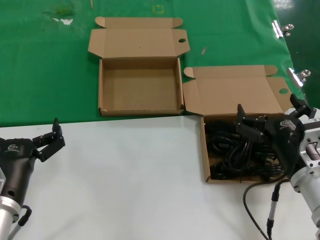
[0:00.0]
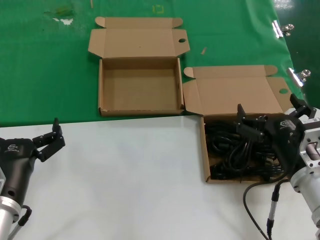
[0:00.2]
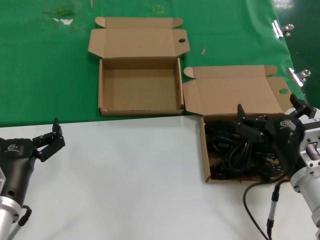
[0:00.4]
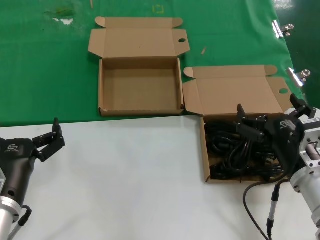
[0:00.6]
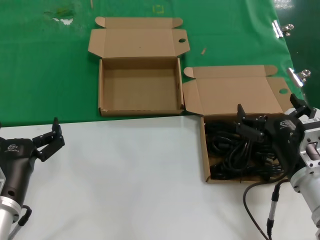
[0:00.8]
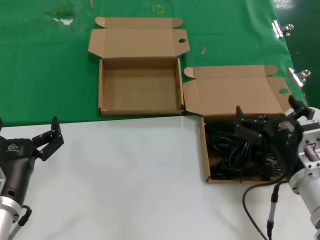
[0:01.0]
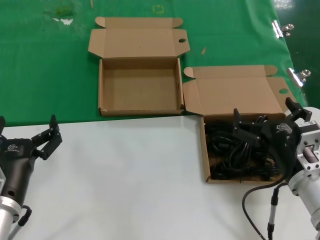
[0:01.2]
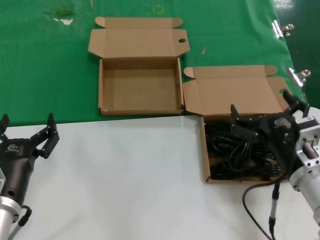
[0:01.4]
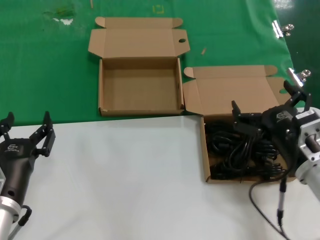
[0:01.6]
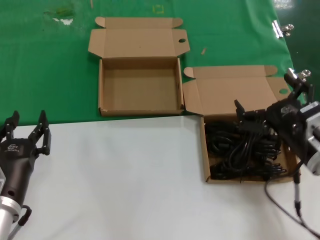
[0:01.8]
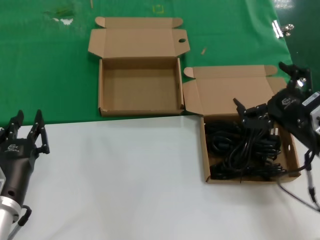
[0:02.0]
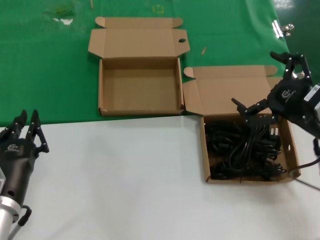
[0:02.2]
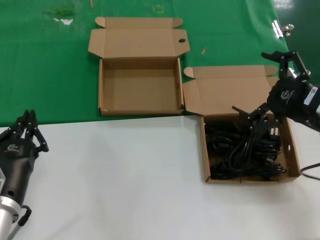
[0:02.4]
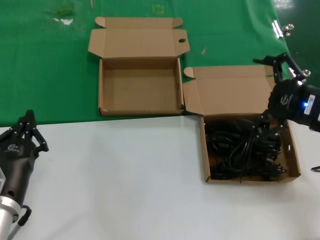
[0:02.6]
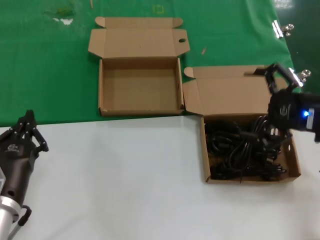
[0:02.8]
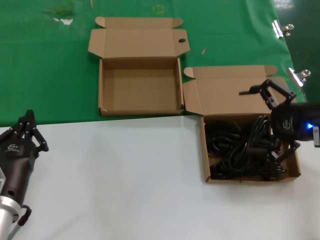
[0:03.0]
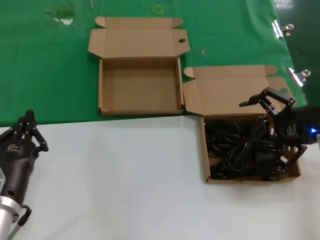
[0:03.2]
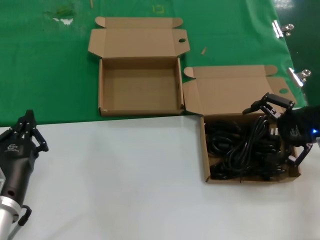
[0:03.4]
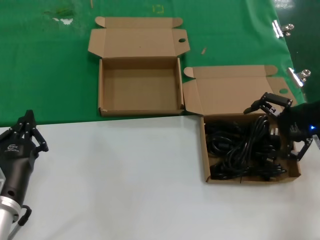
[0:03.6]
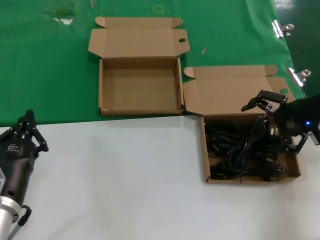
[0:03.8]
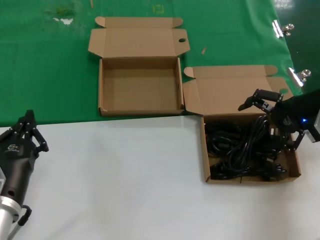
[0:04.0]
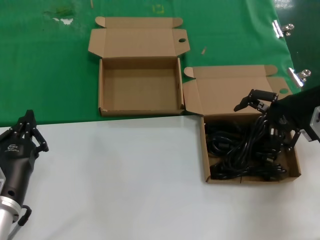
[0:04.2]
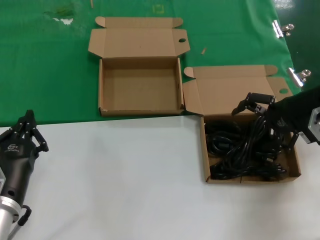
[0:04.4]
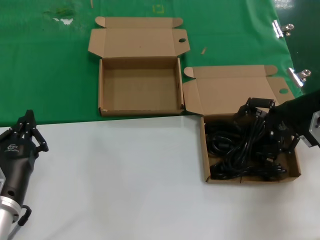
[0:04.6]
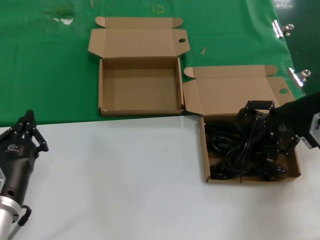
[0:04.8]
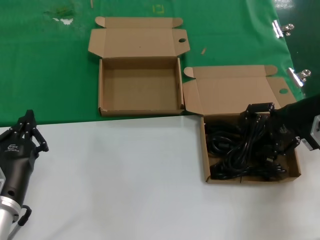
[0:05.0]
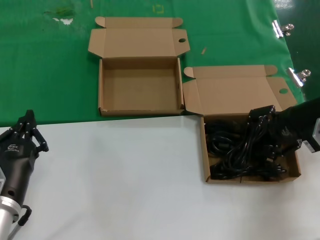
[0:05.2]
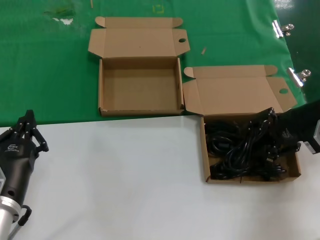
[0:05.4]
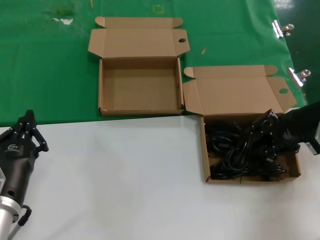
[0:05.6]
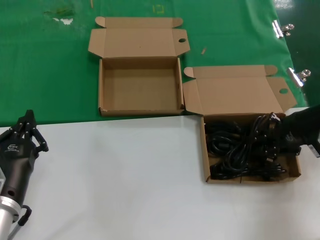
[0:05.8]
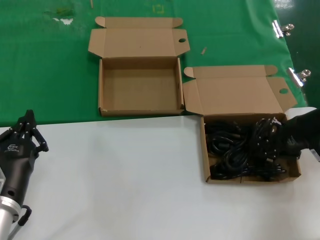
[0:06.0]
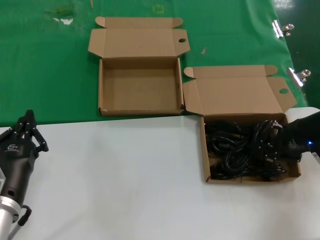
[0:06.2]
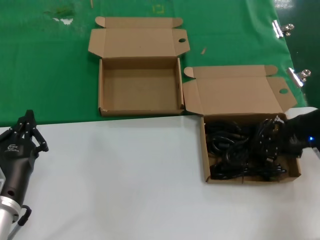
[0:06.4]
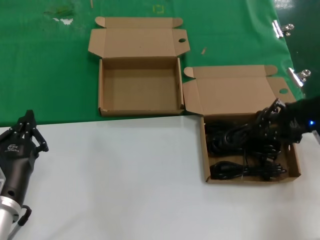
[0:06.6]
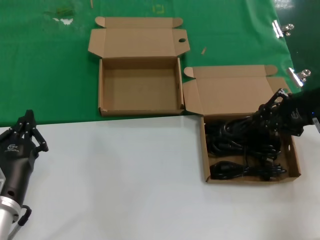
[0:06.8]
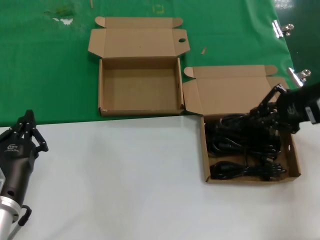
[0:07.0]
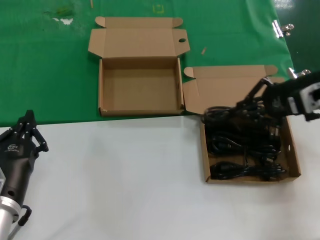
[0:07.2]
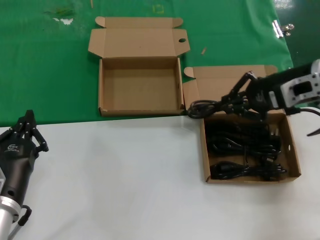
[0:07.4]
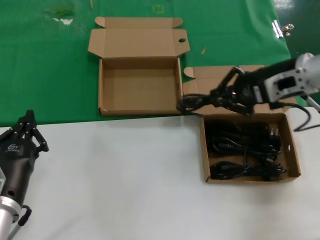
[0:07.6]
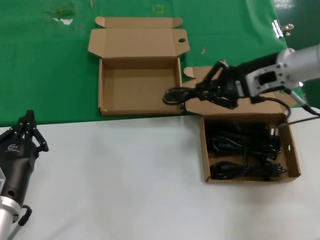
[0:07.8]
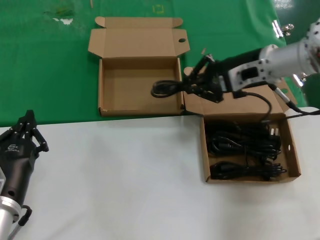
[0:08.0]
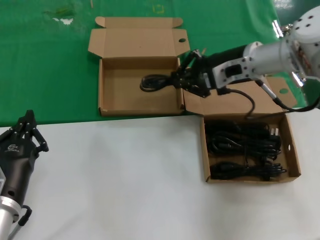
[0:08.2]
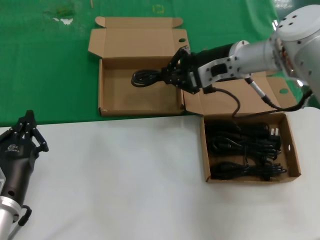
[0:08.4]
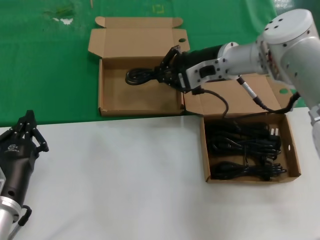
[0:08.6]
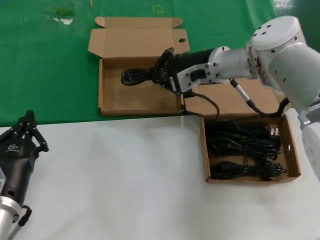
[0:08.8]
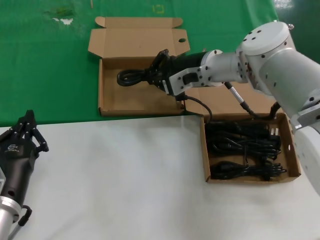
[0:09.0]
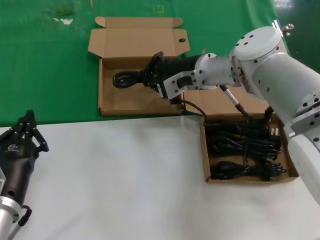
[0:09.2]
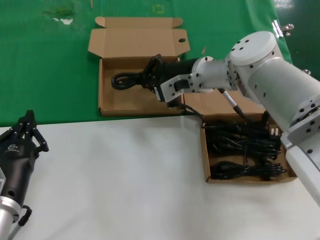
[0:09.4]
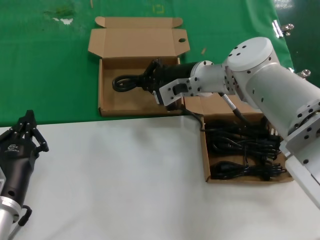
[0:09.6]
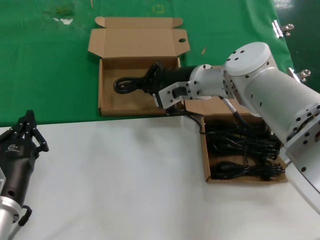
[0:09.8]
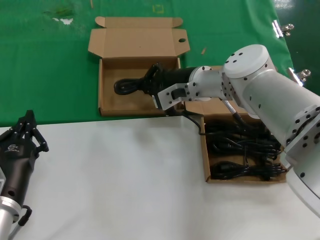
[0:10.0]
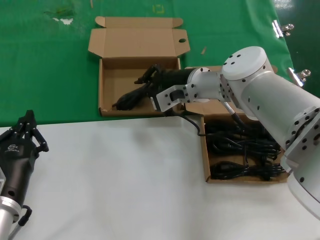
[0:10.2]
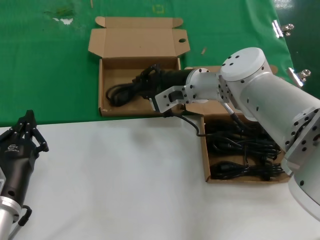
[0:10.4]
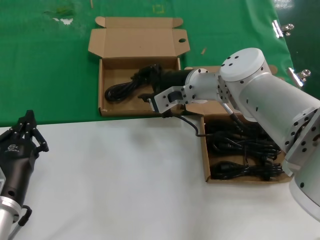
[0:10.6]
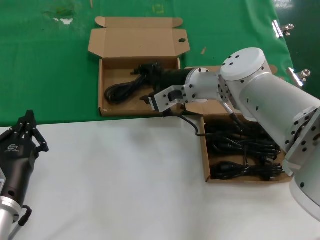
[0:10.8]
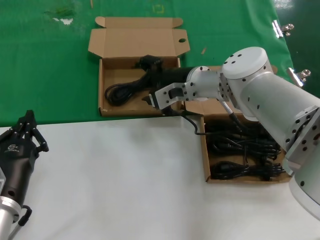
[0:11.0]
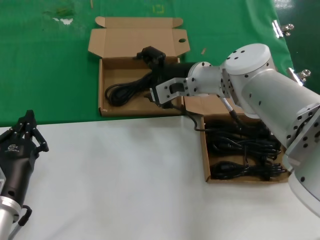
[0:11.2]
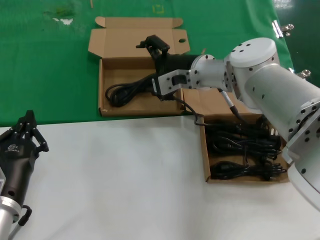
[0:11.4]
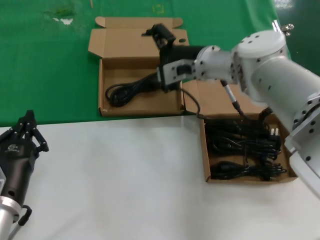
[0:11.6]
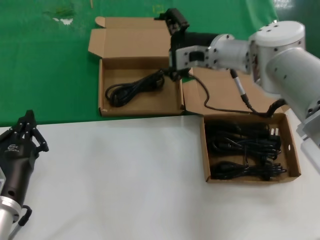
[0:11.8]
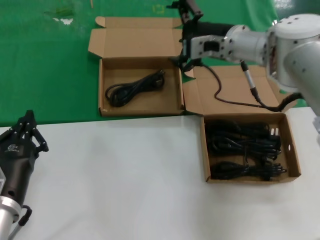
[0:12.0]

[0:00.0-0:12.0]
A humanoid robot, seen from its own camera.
Task of the whole recording: take the parts from the box containing them and put them into an empty box.
Step, 0:00.0 to 0:05.8: Grasp the data cable.
Step, 0:06.0 to 0:10.4: Place the data cable in the another box.
0:00.0 to 0:01.6: The hands make only small movements.
0:01.6 to 0:03.0: The right hand moves upward, to the right and forward, about 20 cm.
0:03.0 to 0:04.4: The right hand is displaced forward by about 10 cm.
0:04.4 to 0:06.0: The hands make only small movements.
0:06.0 to 0:07.6: The right hand moves to the left and upward, some 10 cm.
0:07.6 to 0:09.0: The right hand is displaced to the left and forward by some 15 cm.
0:09.0 to 0:10.4: The right hand moves roughly 5 cm.
0:10.4 to 0:12.0: The right hand travels to the right and upward by about 10 cm.

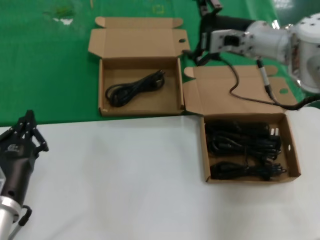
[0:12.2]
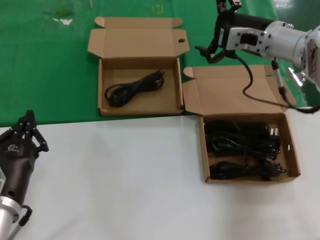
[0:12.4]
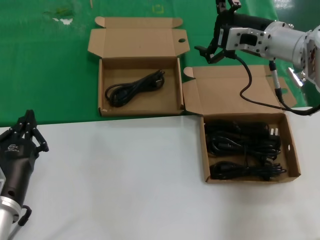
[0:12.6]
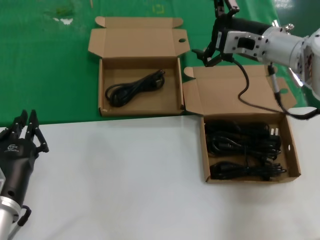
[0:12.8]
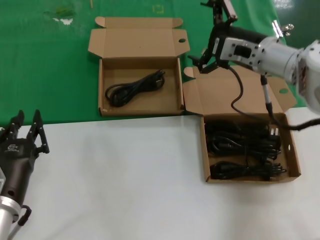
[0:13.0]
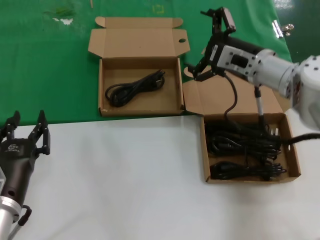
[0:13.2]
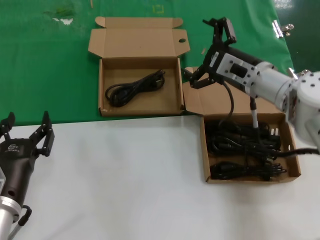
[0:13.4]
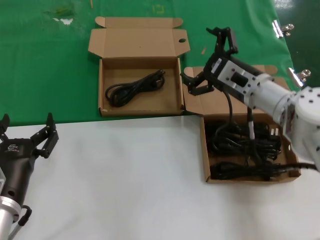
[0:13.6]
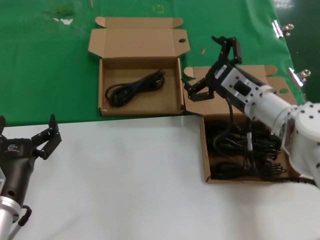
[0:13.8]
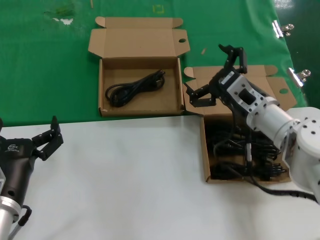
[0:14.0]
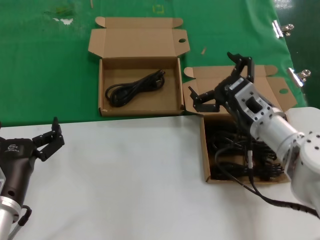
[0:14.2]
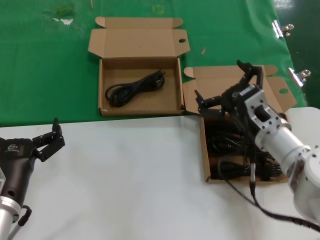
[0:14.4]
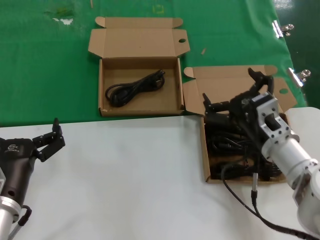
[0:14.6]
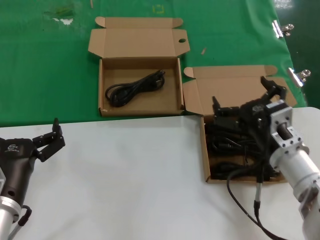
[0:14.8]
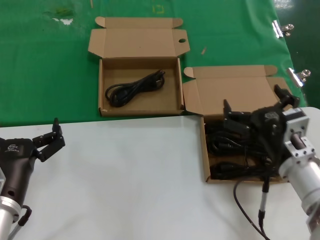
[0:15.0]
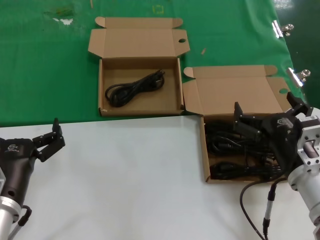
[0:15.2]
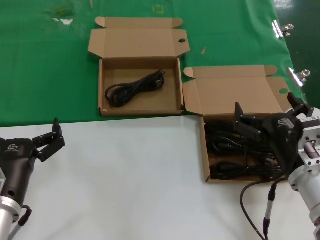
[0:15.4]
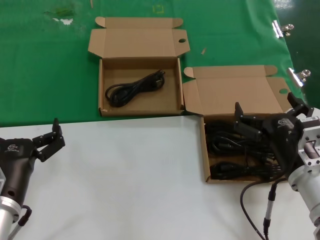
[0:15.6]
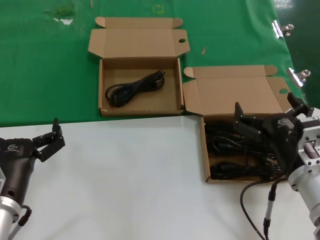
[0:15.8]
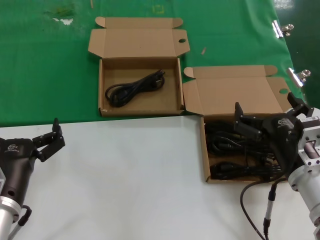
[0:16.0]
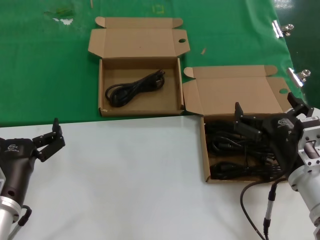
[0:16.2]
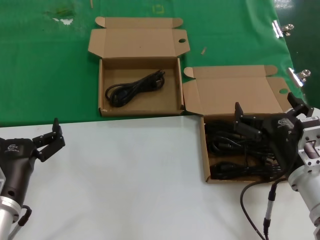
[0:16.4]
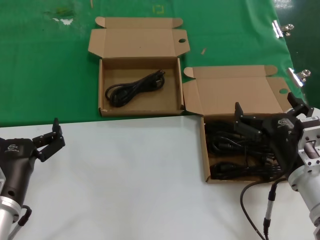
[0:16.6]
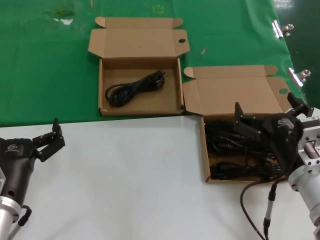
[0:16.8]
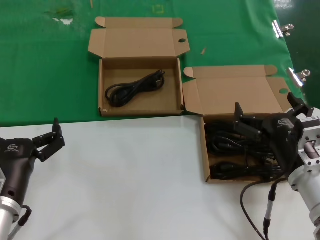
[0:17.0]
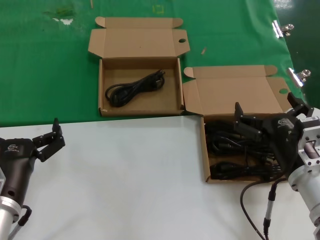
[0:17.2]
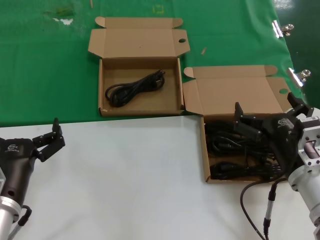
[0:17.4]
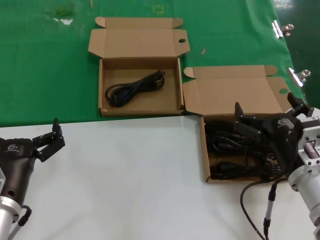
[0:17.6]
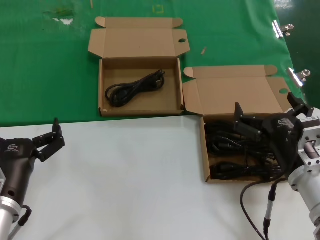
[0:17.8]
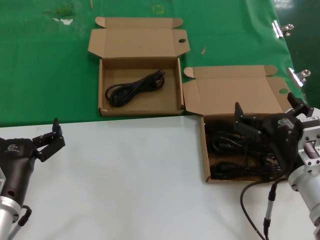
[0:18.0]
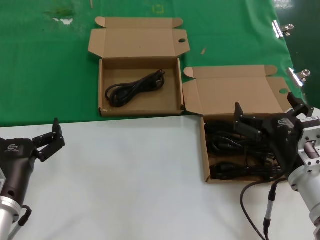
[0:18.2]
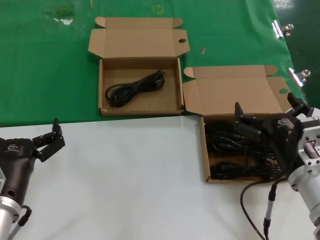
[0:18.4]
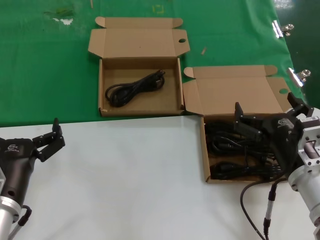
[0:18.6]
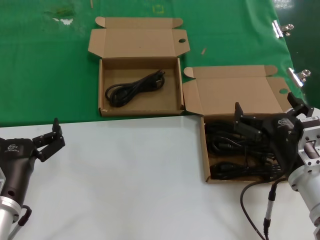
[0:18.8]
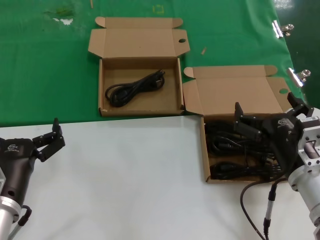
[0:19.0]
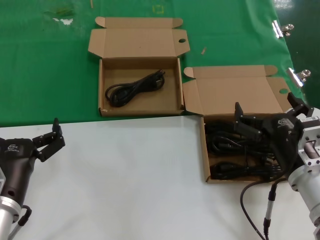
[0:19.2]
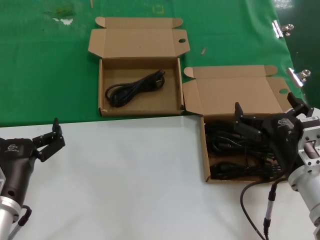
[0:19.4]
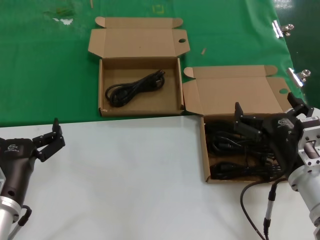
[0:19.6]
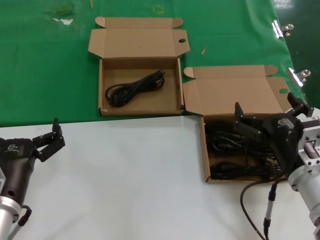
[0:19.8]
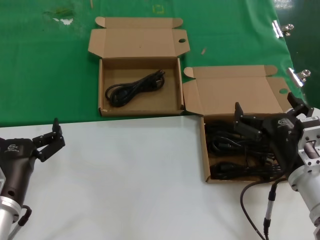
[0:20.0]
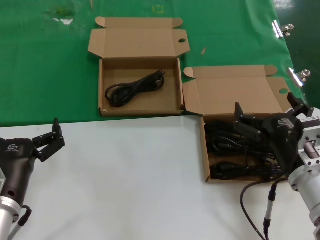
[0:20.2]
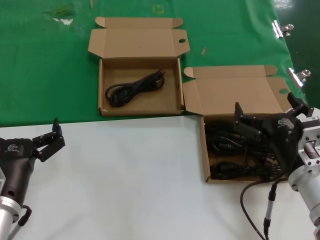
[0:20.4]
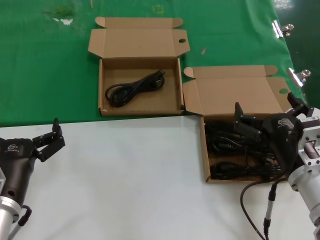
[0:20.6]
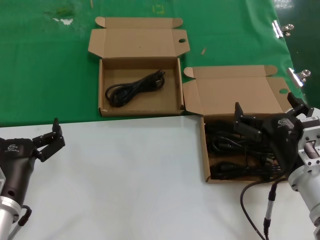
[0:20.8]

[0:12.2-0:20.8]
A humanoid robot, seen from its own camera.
Task of the whole recording: take the parts from the box containing them and put them into an empty box.
0:12.2 to 0:13.6: The right hand heads downward and backward, covering approximately 10 cm.
0:13.6 to 0:15.0: The right hand goes approximately 15 cm backward and downward.
0:15.0 to 0:16.6: The hands move only a little.
0:16.6 to 0:20.8: Both hands stay about where they are.
